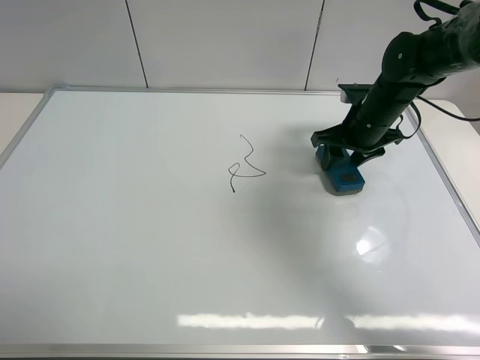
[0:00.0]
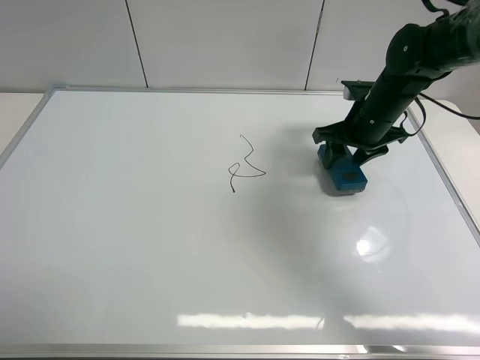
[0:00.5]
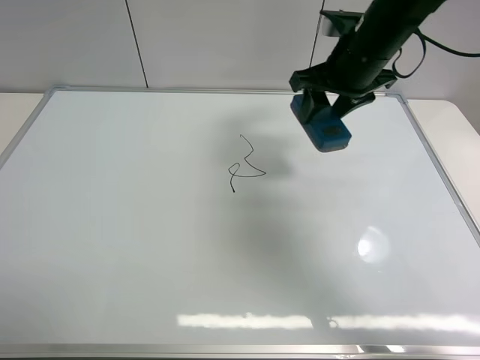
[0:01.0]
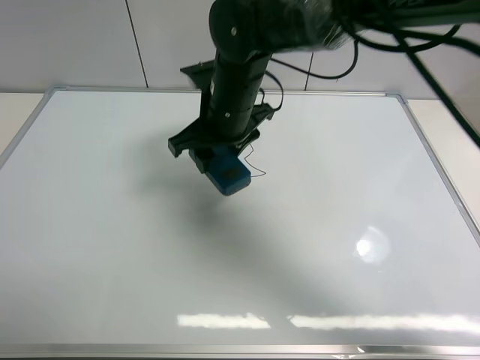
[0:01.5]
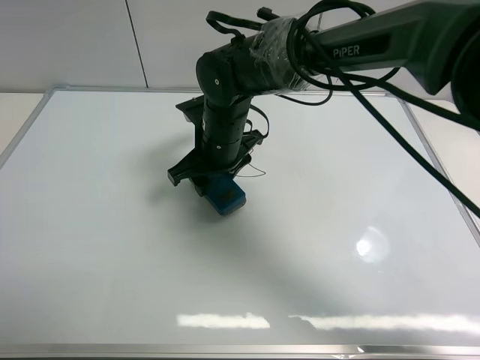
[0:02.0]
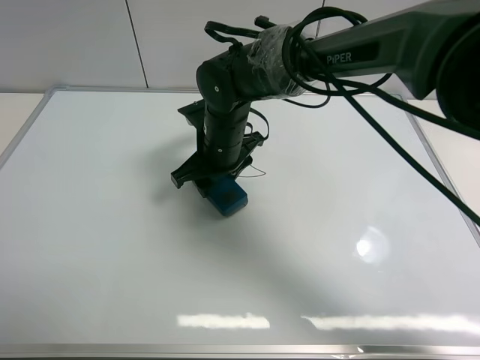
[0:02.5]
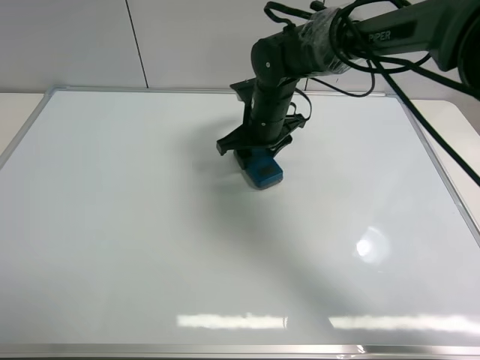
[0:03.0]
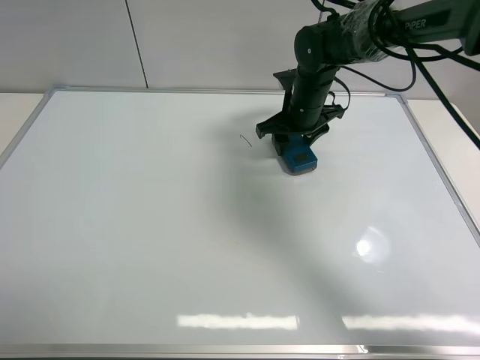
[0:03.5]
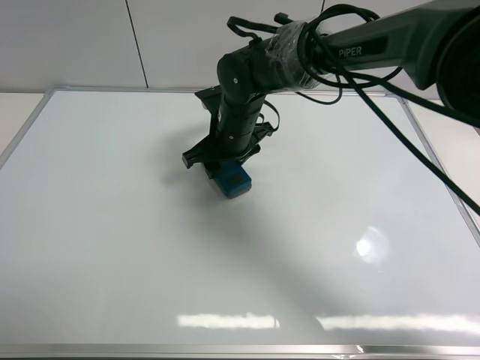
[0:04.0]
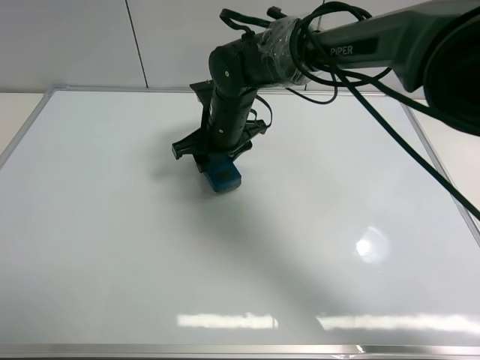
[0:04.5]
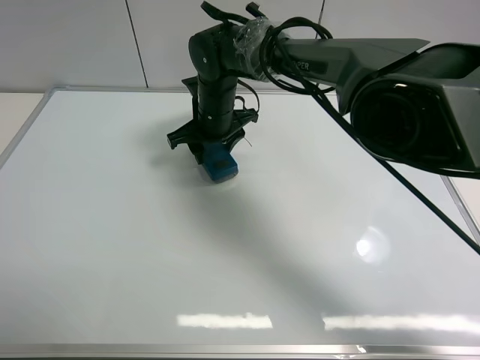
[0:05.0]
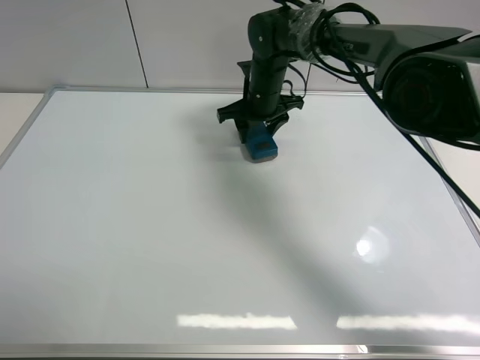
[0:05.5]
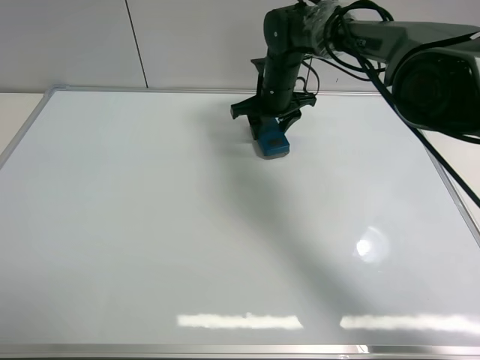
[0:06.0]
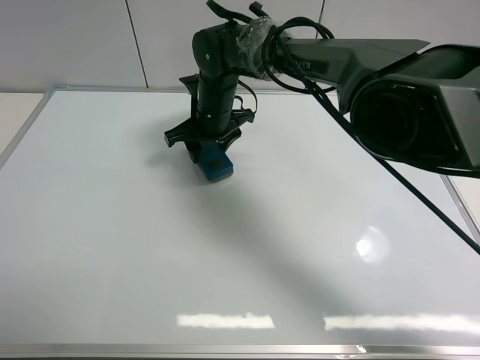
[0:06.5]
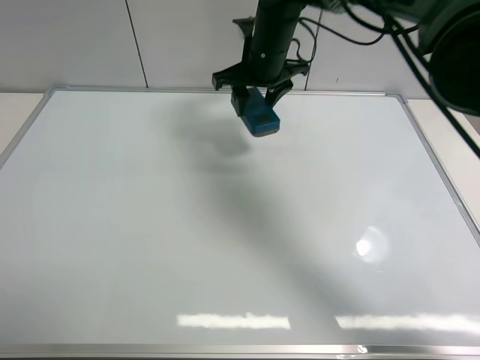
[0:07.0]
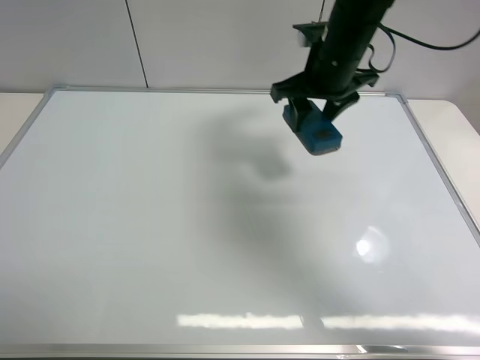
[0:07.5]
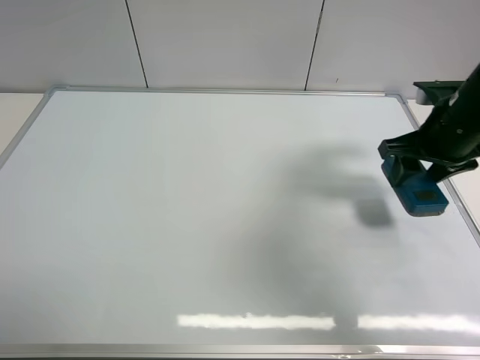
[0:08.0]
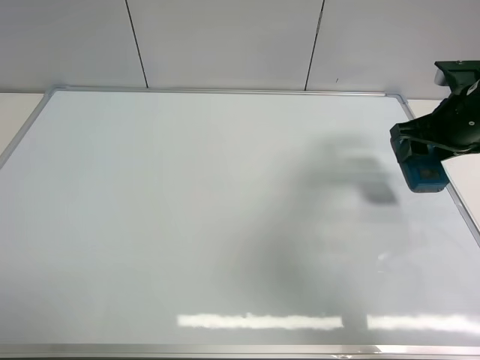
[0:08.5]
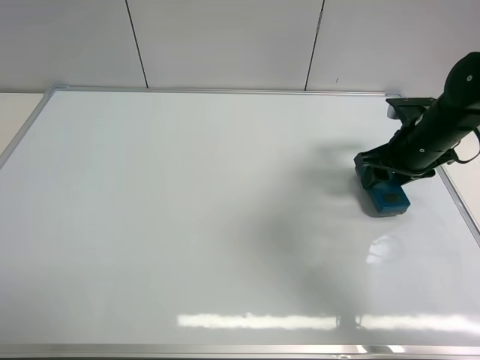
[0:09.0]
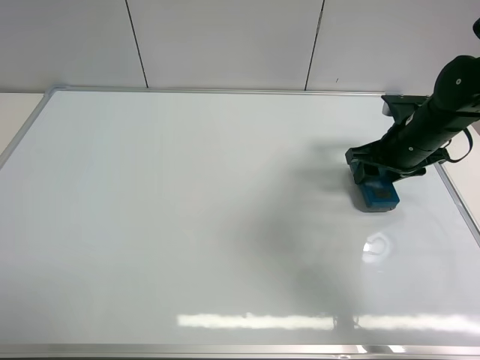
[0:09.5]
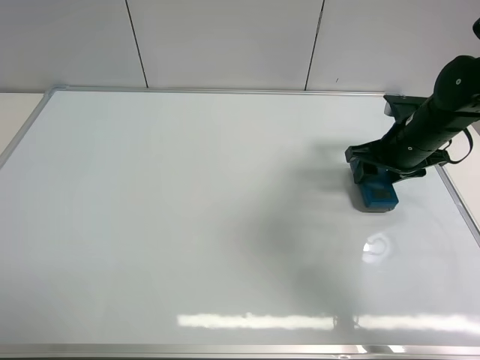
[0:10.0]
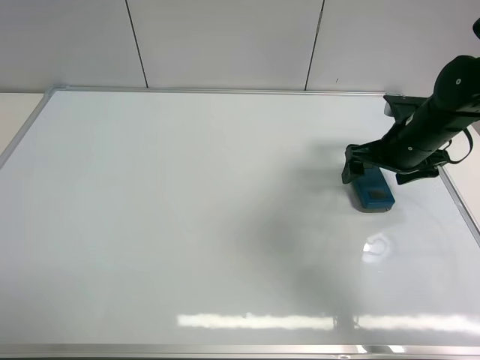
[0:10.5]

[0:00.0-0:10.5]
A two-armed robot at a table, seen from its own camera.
Task of the whole recording: use the right gripper to pick up the board eraser, wipe the notes on the whiteboard clean, and then put them back in place.
Step, 0:01.0 to 0:06.5: Wipe off the writing on the board with right gripper.
Step, 0:07.0 to 0:10.0: Move the board eraser to the right of the whiteboard with right gripper.
0:00.0 to 0:02.0: The right gripper is displaced to the left by approximately 25 cm.
0:02.0 to 0:04.0: The right gripper moves about 15 cm to the right and comes back.
0:06.5 to 0:08.5: The right gripper travels to the right by some 35 cm.
0:08.5 to 0:10.5: The right gripper heads downward, covering approximately 5 cm, and opens up.

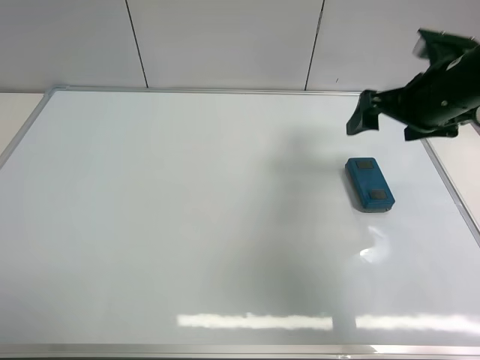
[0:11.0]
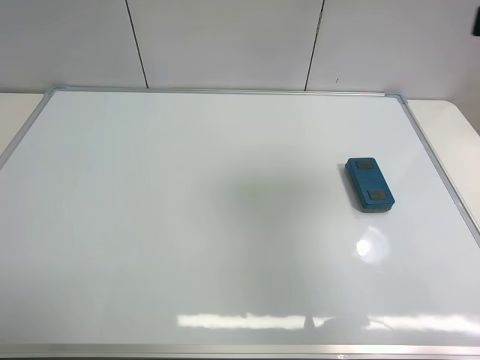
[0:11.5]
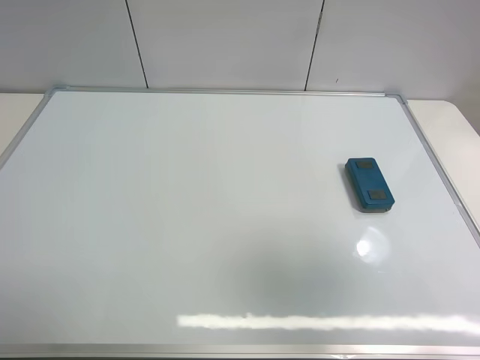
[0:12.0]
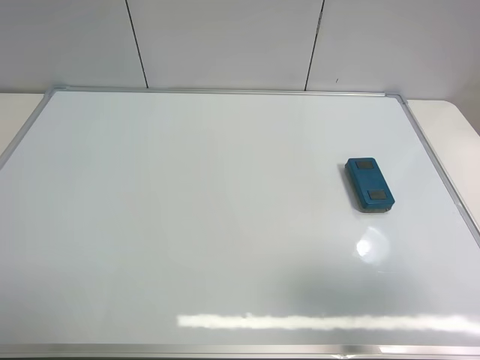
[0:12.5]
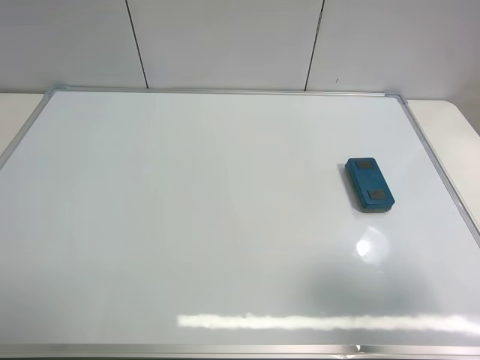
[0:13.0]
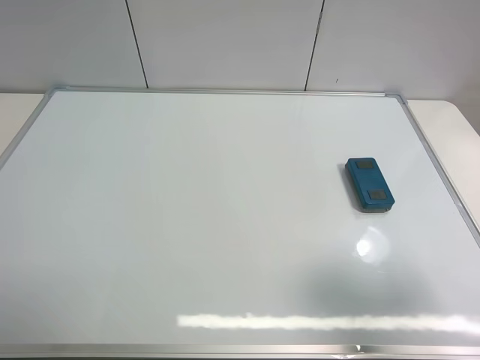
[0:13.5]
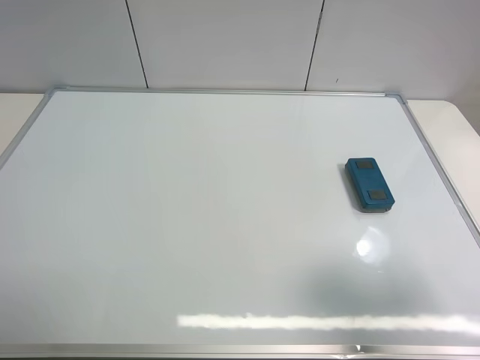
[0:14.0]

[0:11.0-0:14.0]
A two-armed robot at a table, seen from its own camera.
Task of the whole recording: use the right gripper to pick up the board eraser, wipe the notes on the whiteboard clean, and then put them back in place.
0:11.0 to 0:12.5: The right gripper is displaced backward by some 30 cm.

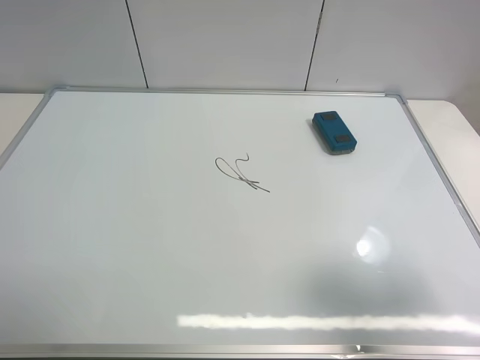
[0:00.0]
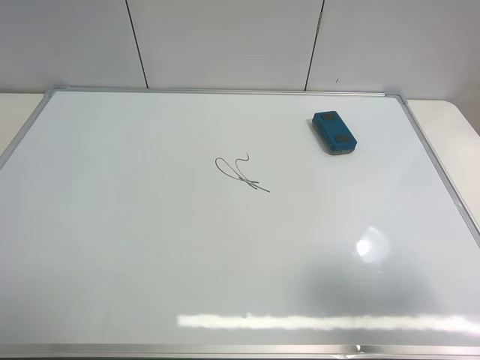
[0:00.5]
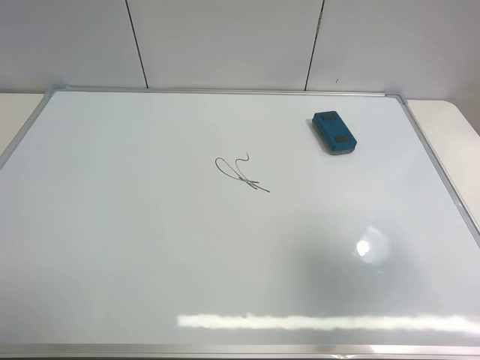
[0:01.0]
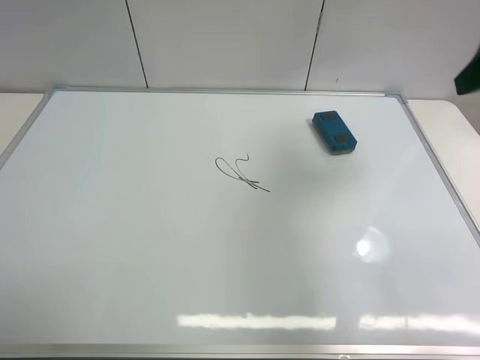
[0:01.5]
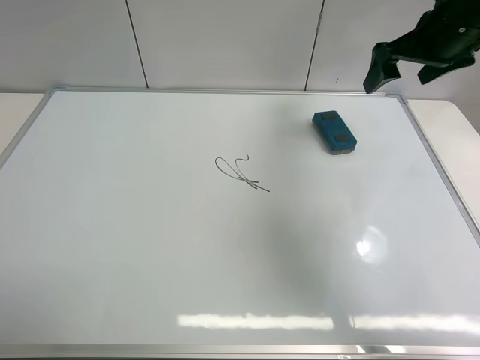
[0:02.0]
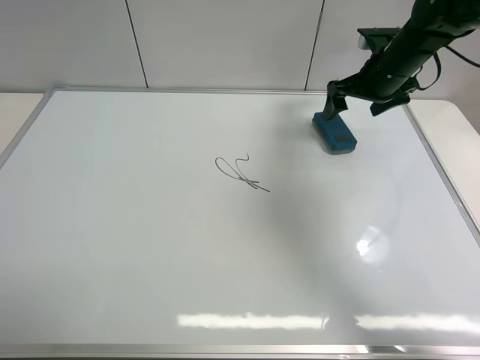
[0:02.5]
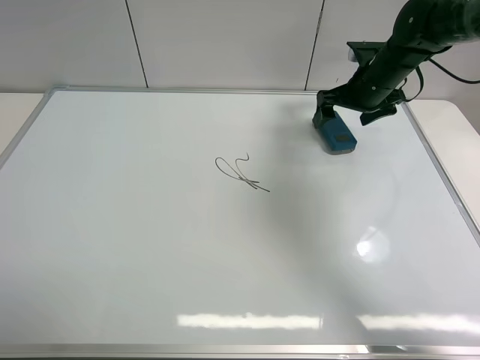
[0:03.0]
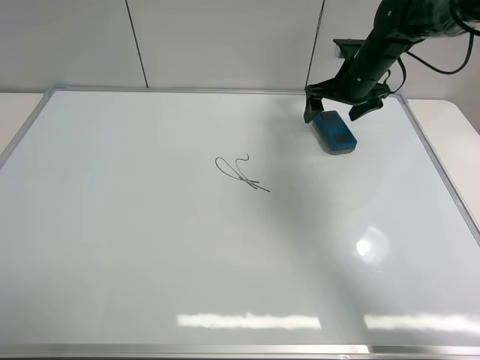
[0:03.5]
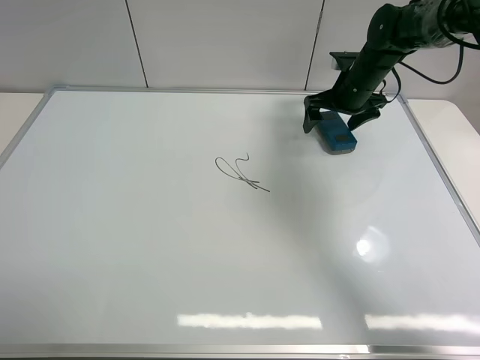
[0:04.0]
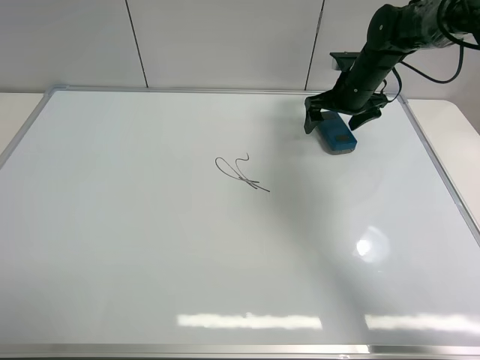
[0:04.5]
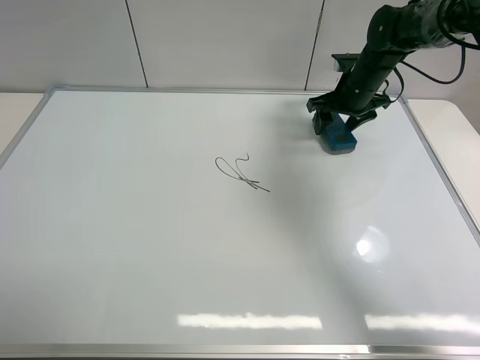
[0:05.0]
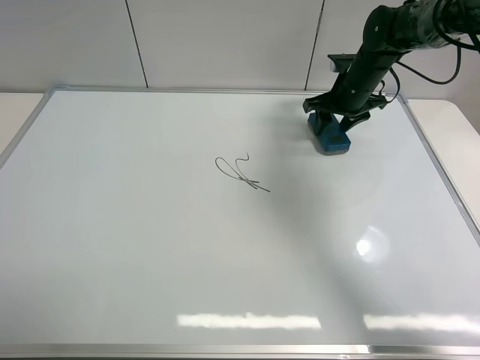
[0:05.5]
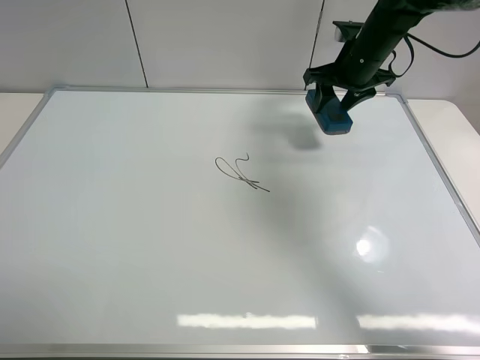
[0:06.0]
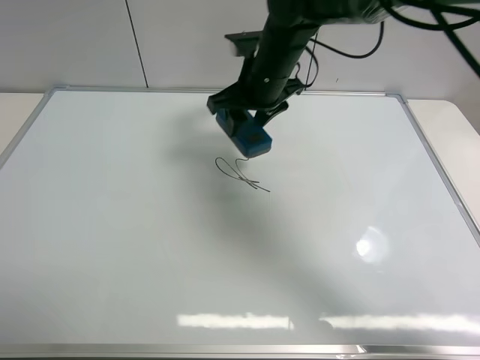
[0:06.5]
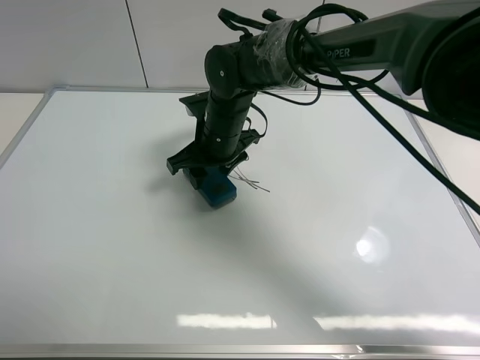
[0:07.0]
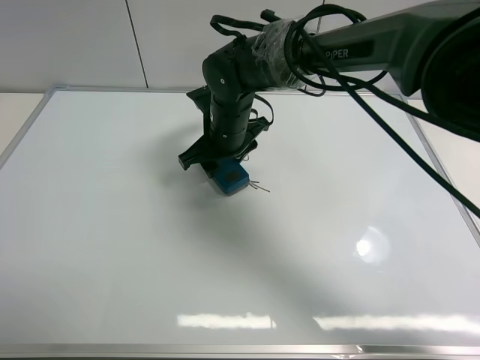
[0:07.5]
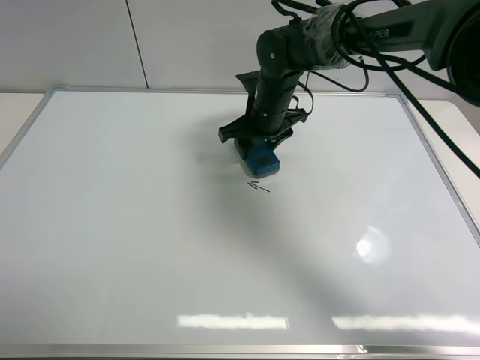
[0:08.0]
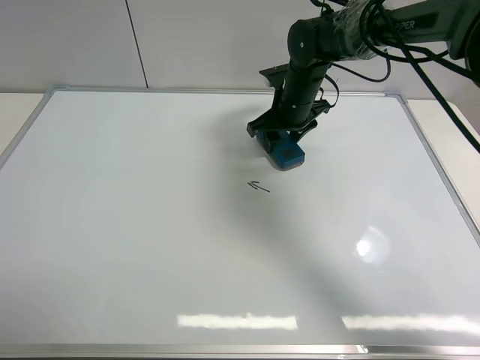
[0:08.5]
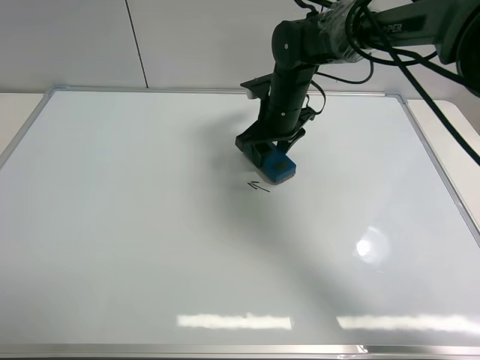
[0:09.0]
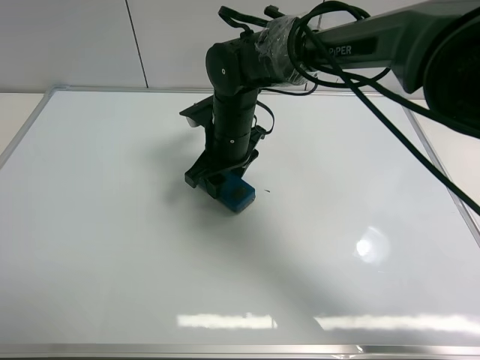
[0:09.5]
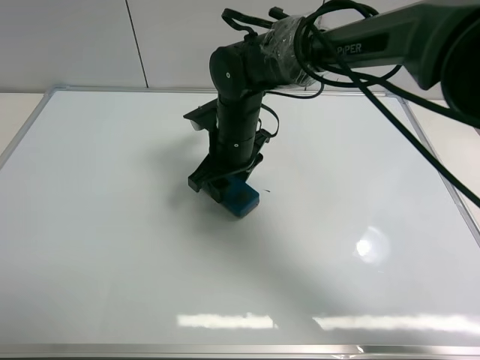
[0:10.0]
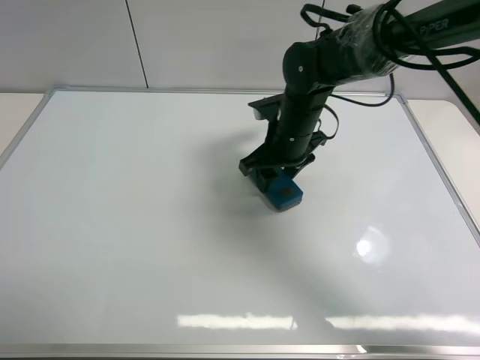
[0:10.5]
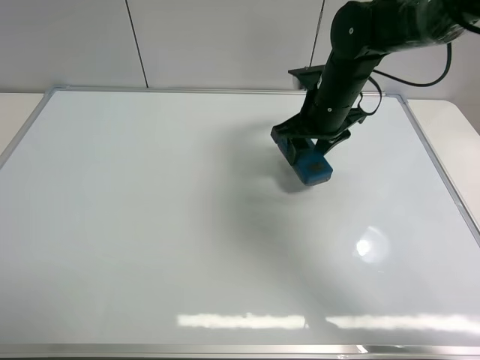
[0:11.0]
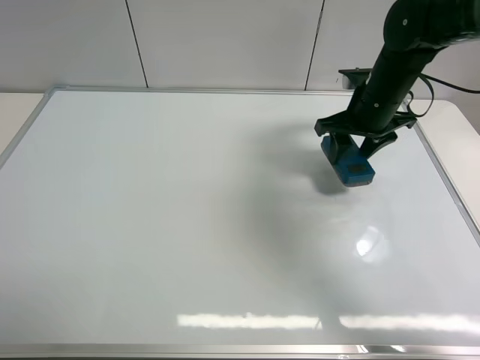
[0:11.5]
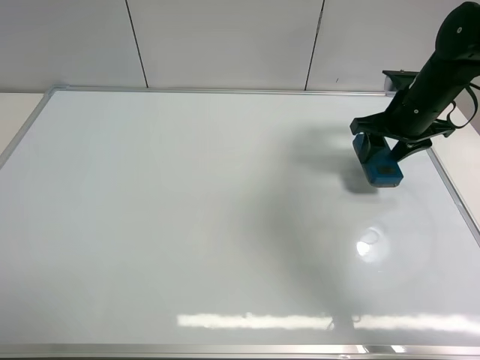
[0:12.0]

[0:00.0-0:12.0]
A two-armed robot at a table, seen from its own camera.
Task of the whole recording: use the right gripper to pick up the board eraser, wipe the notes on the whiteboard clean, and then put them back in place.
Step, 0:00.0 to 0:05.5: Pick up the board eraser with right gripper.
Step, 0:06.0 to 0:10.5: Wipe off the writing on the board with right gripper.
0:00.0 to 0:02.0: The right gripper travels forward by some 40 cm.
0:02.0 to 0:04.0: The right gripper shifts roughly 15 cm downward, forward and to the left.
0:04.0 to 0:06.0: The right gripper is displaced upward by approximately 5 cm, and closes up.
0:06.0 to 0:08.0: The right gripper goes about 15 cm to the left and downward.
0:08.0 to 0:10.0: The right gripper travels backward and to the left by roughly 10 cm.
0:10.0 to 0:12.0: The right gripper moves to the right, approximately 25 cm.
